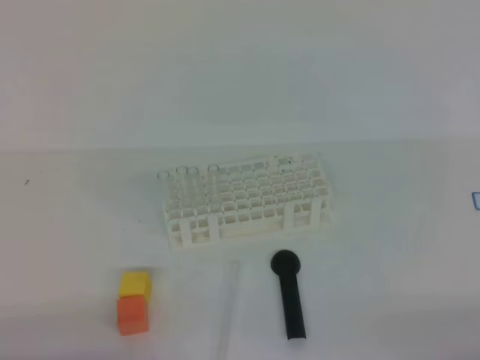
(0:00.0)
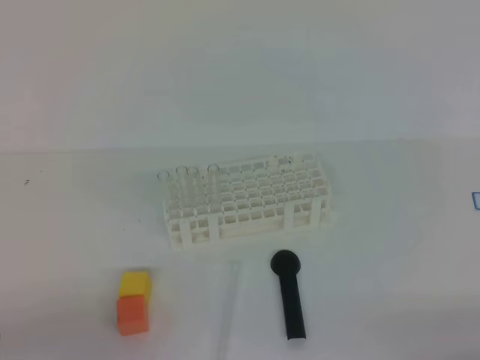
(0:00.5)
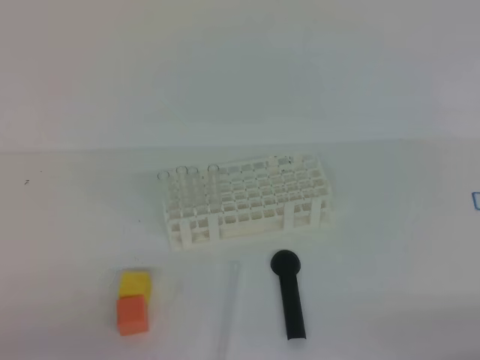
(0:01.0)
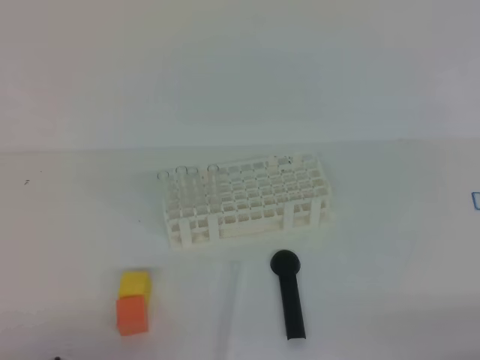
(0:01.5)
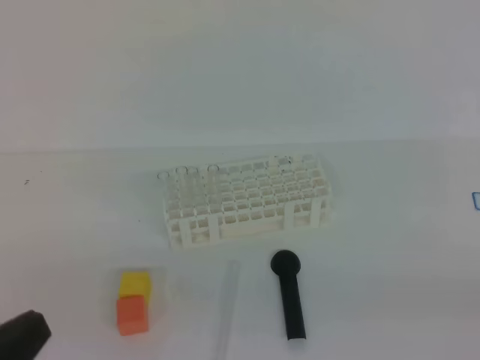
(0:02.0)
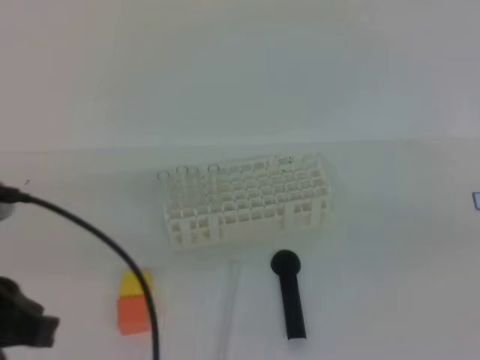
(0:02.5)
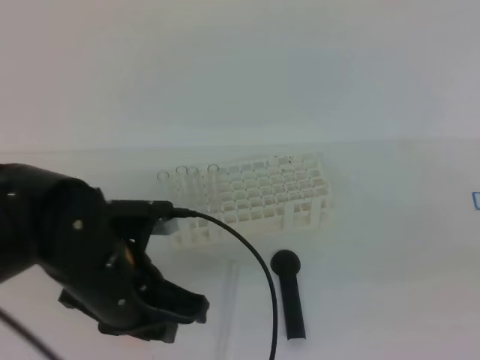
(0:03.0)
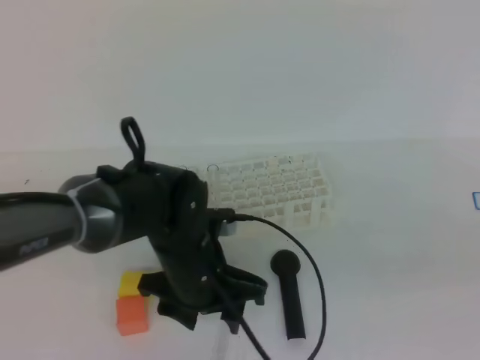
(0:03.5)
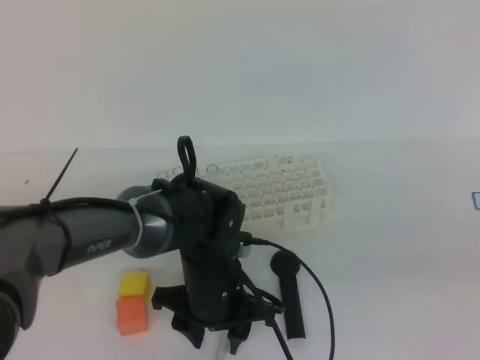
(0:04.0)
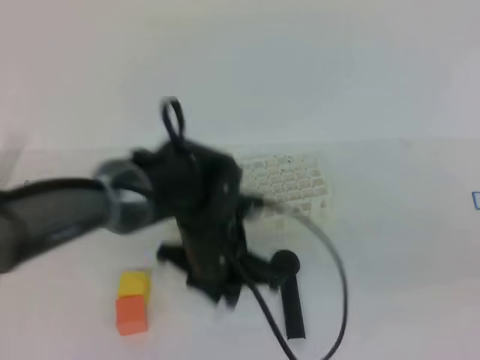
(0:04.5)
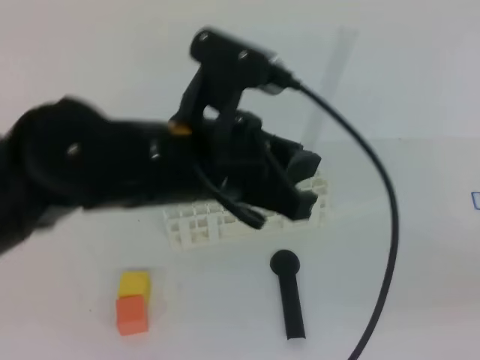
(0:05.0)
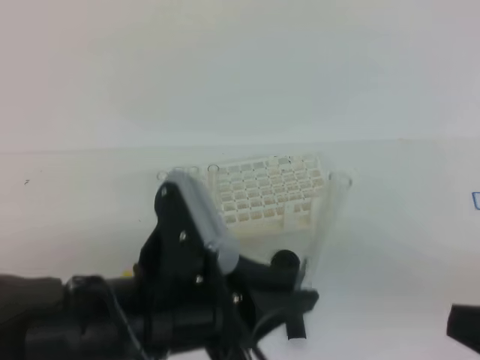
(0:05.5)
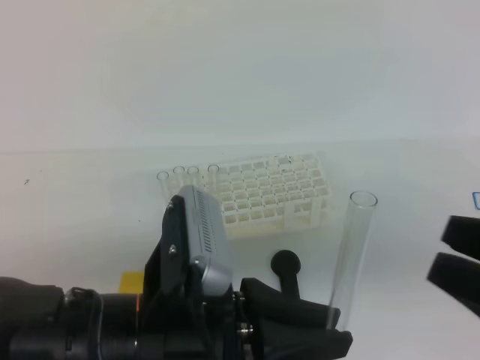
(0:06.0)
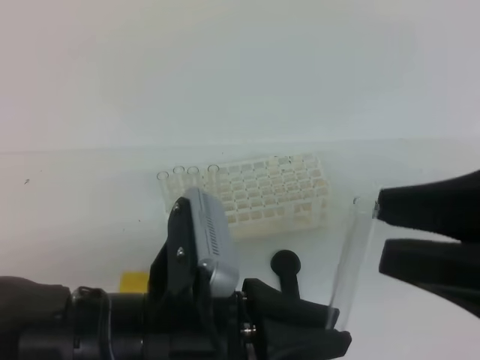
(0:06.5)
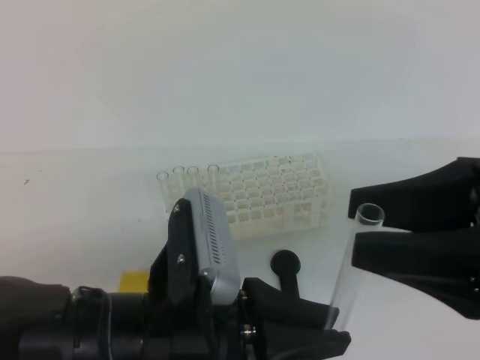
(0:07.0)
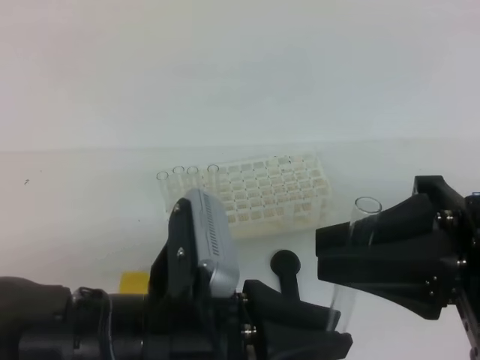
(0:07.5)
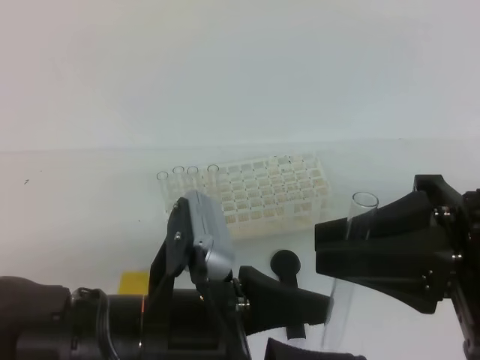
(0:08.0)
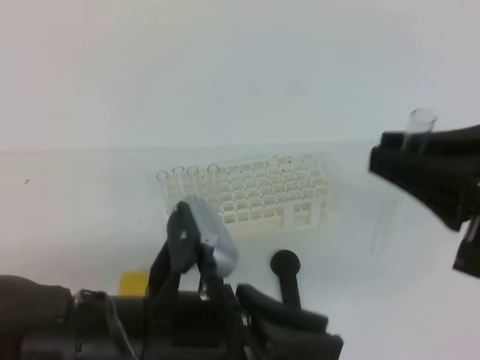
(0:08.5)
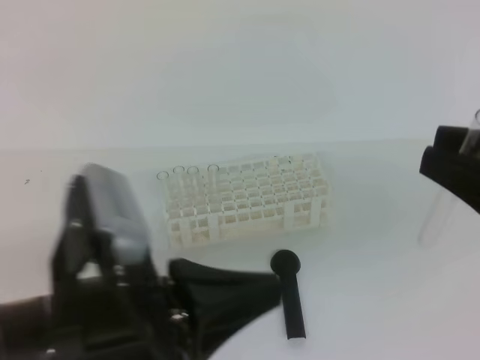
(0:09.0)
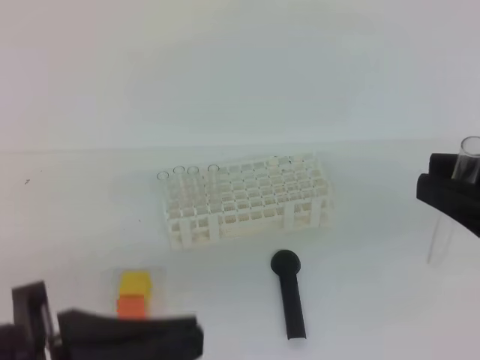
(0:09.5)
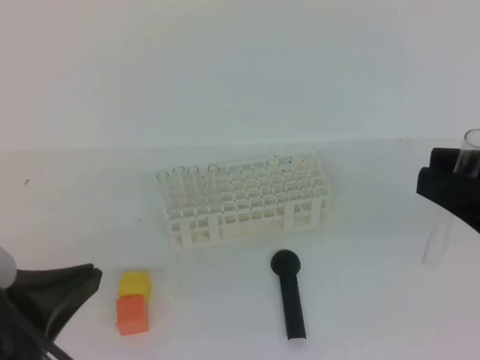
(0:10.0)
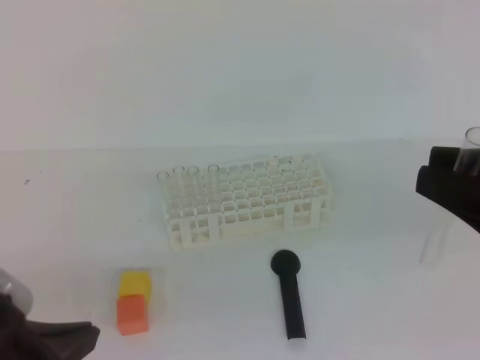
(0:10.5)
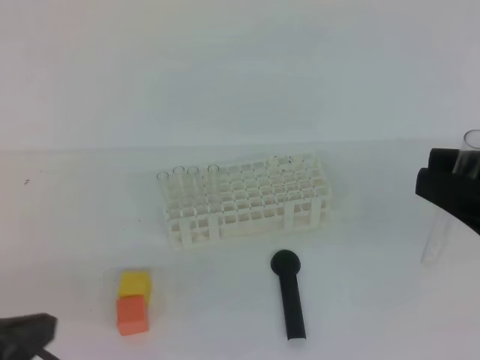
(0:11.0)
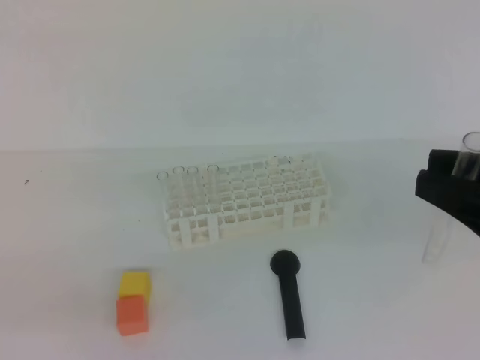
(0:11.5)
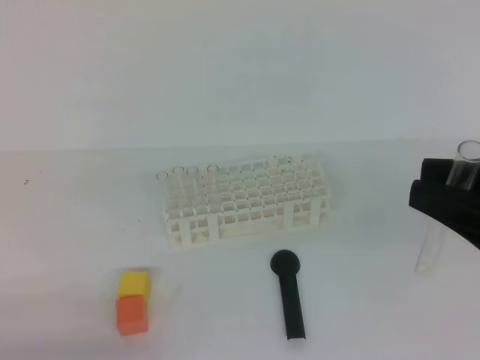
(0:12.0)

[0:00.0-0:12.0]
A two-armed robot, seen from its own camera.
0:00.0 to 0:02.0: The left gripper is displaced upward by approximately 10 cm.
0:02.0 to 0:04.0: The left gripper shifts some 35 cm forward, to the right and downward, and opens up. The right gripper is displaced upward, forward and to the left by roughly 10 cm.
0:04.0 to 0:06.0: The left gripper heads backward and upward, covering roughly 20 cm, and closes its fingers. Meanwhile the right gripper opens.
0:06.0 to 0:08.0: The left gripper opens. The right gripper heads forward and to the left, covering roughly 10 cm, and closes.
0:08.0 to 0:10.0: The right gripper shifts by roughly 5 cm. The left gripper goes some 15 cm to the left and upward, and closes.
0:10.0 to 0:12.0: The left gripper goes roughly 15 cm downward and to the left.

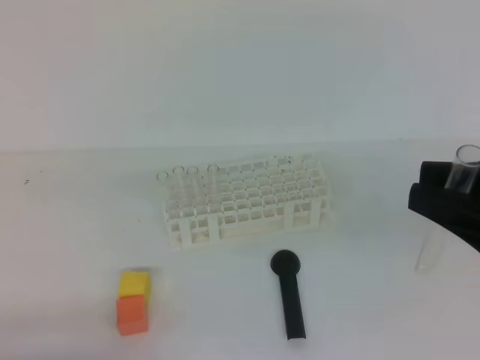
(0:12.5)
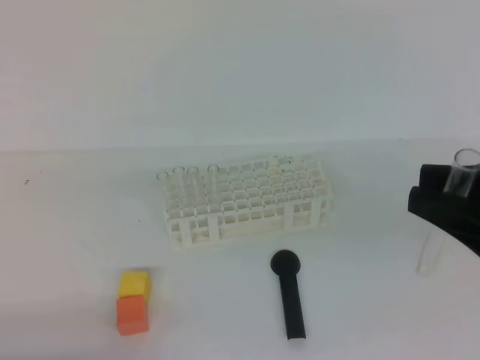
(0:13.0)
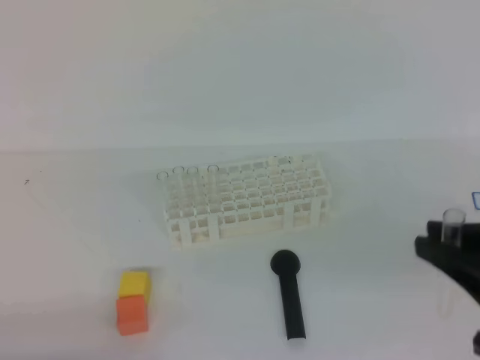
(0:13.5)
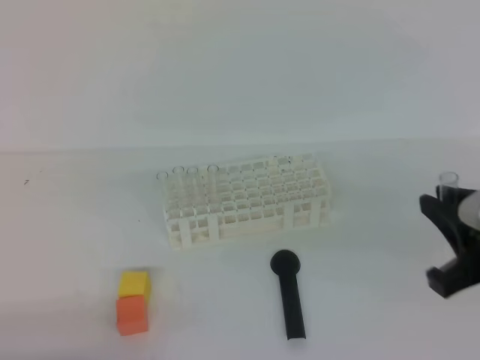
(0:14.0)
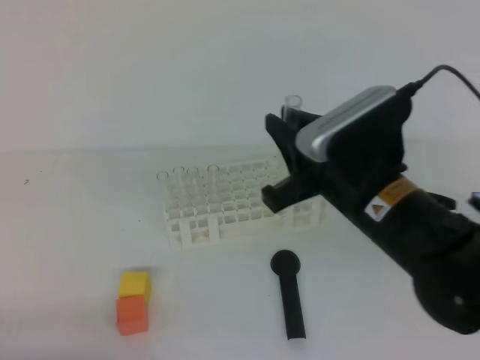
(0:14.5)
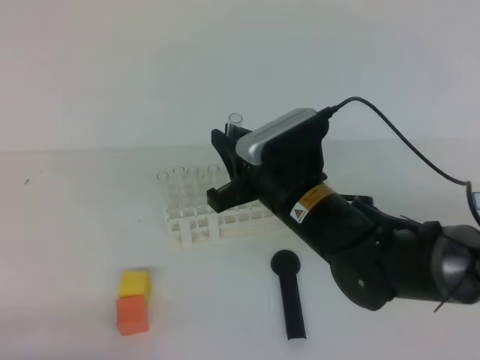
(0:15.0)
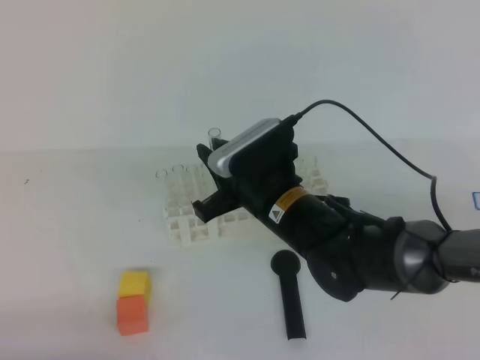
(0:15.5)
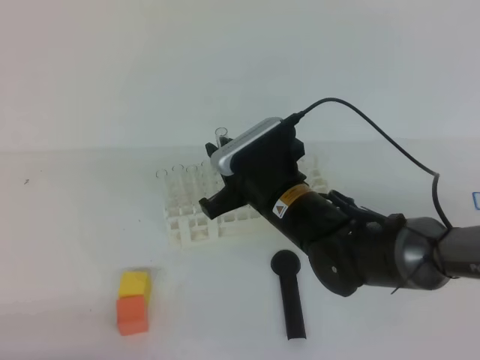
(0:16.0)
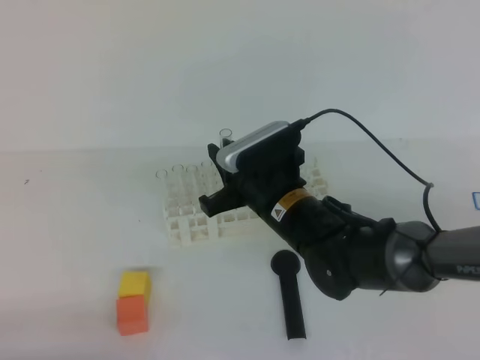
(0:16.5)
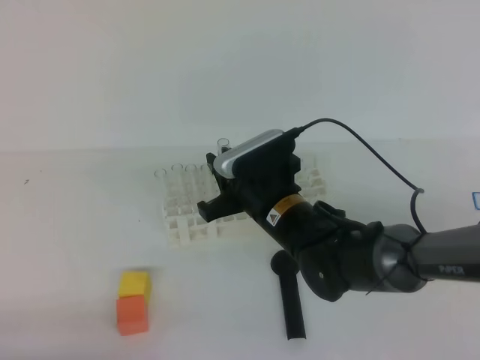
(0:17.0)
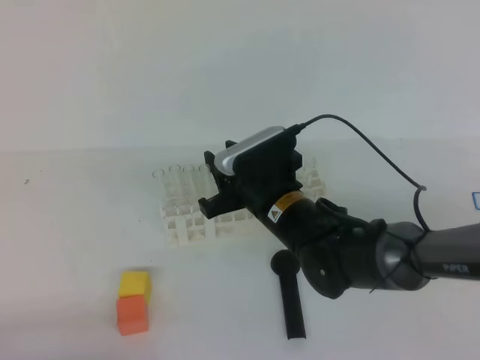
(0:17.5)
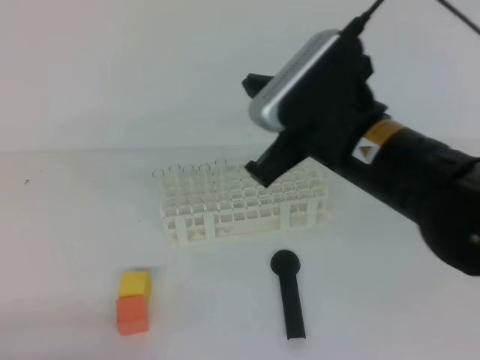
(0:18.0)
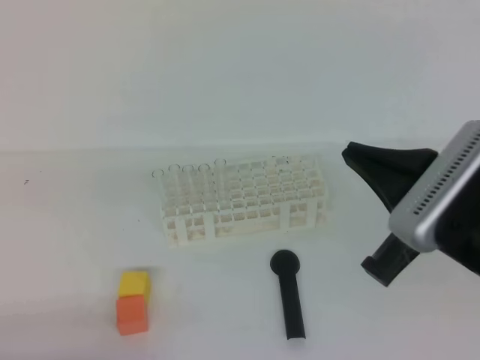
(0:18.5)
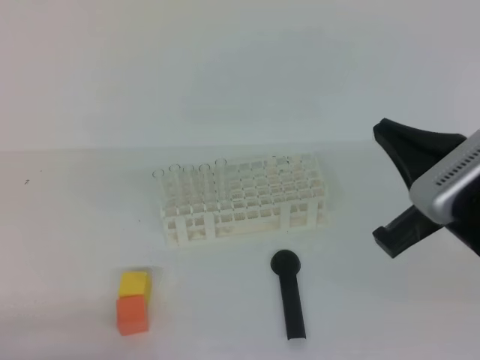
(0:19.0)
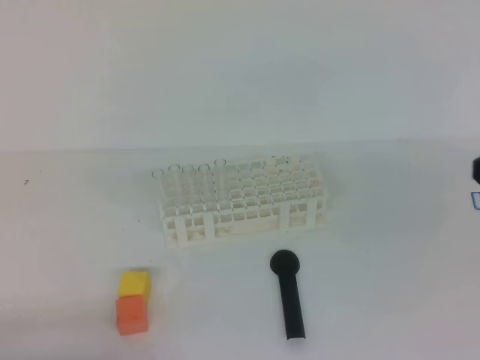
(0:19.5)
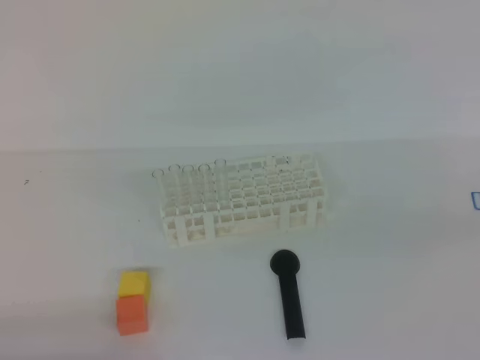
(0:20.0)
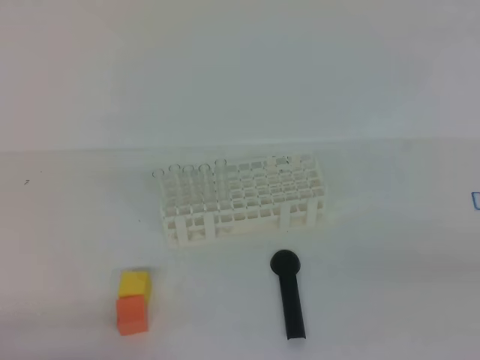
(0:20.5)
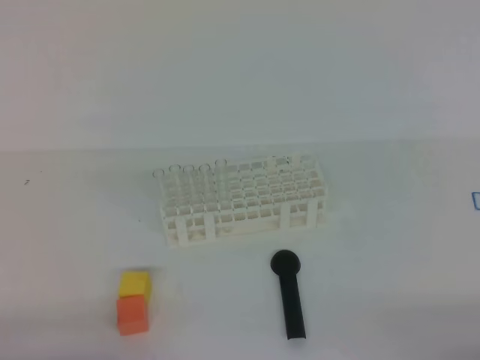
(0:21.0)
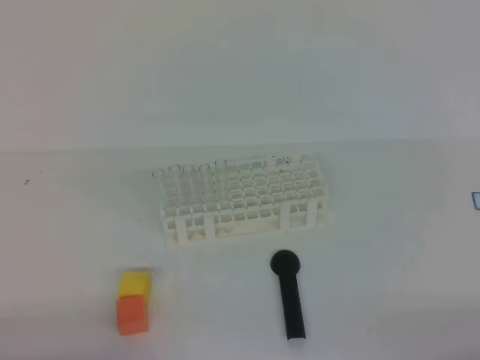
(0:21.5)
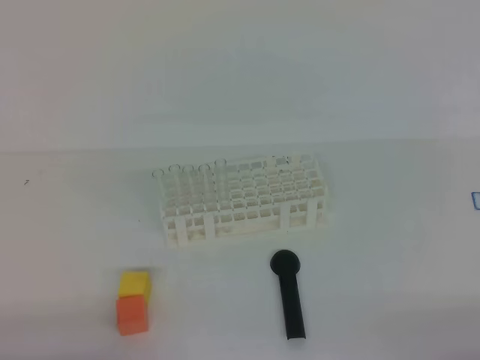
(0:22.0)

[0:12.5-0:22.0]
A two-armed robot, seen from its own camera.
0:12.5 to 0:14.5: The right gripper heads forward, to the left and downward, covering about 20 cm.
0:14.5 to 0:16.5: The right gripper shifts some 15 cm downward, to the left and forward.
0:16.5 to 0:18.0: The right gripper heads upward and backward, covering approximately 15 cm, and opens and closes again.
0:18.0 to 0:20.0: The right gripper moves to the right and backward, some 30 cm.
